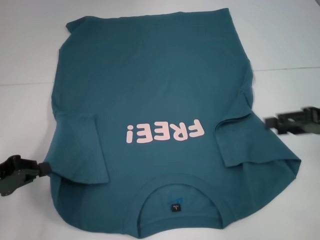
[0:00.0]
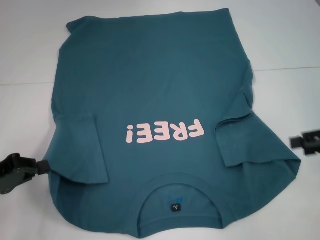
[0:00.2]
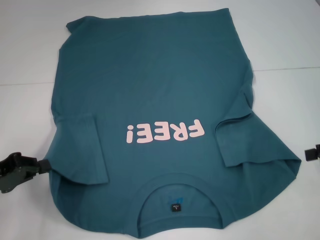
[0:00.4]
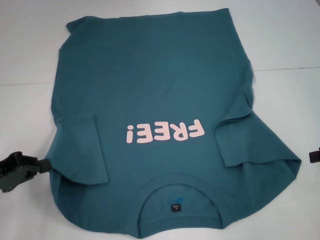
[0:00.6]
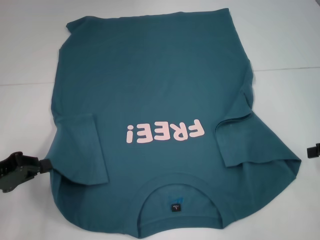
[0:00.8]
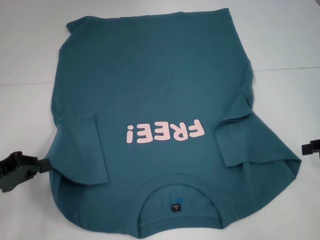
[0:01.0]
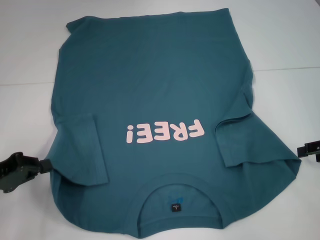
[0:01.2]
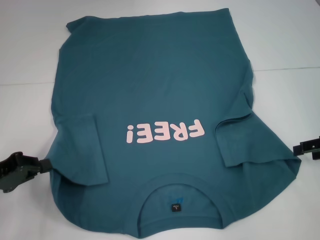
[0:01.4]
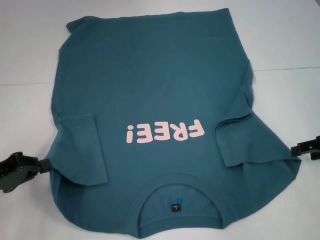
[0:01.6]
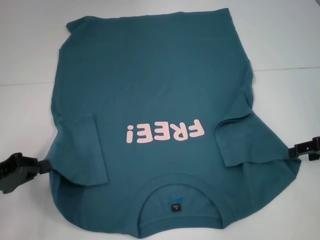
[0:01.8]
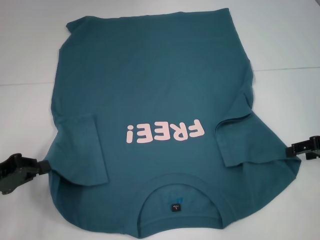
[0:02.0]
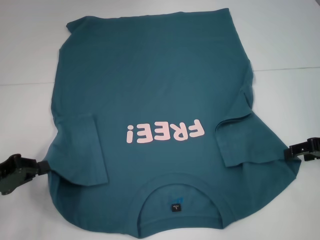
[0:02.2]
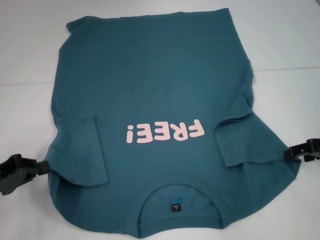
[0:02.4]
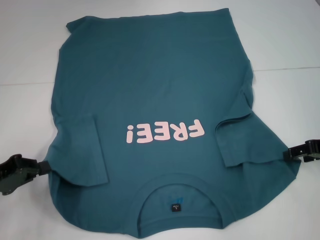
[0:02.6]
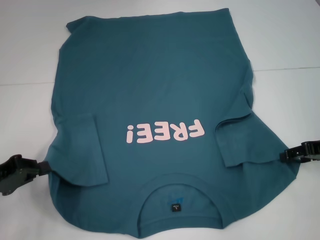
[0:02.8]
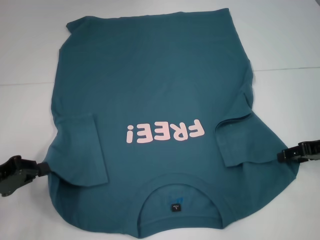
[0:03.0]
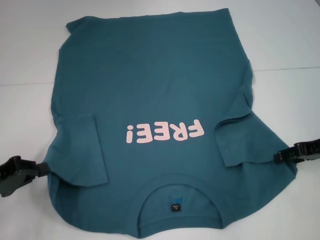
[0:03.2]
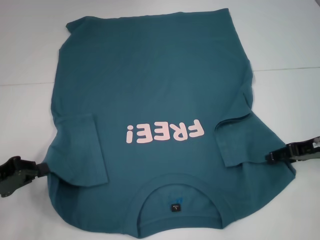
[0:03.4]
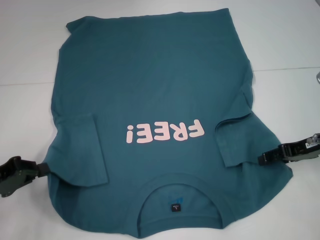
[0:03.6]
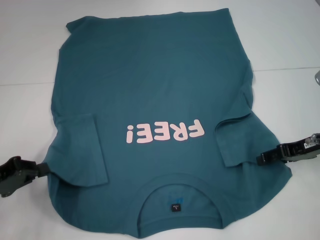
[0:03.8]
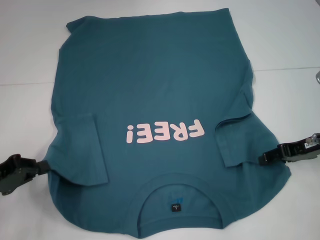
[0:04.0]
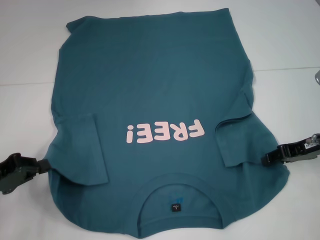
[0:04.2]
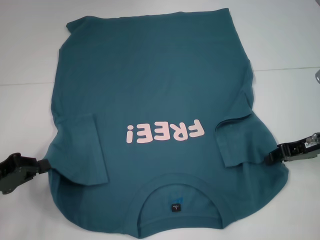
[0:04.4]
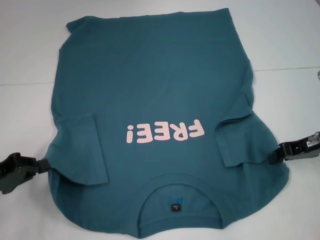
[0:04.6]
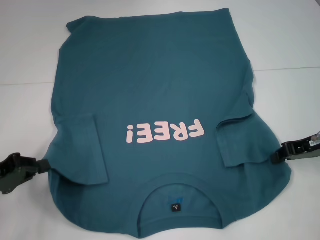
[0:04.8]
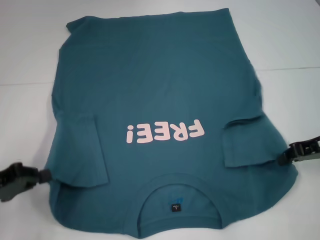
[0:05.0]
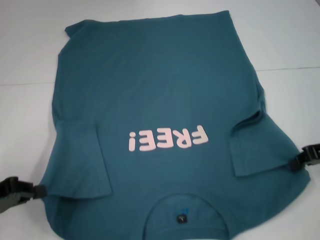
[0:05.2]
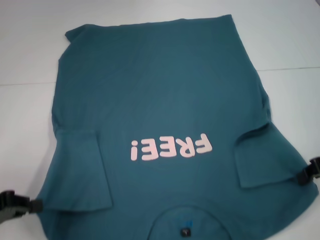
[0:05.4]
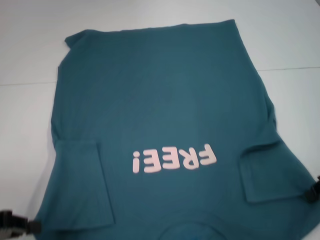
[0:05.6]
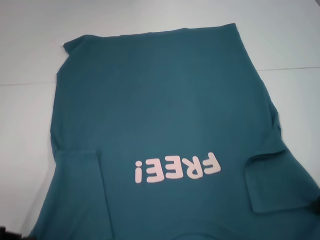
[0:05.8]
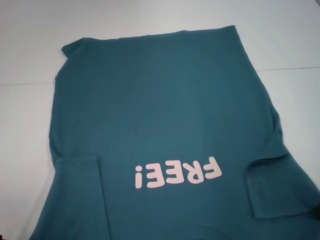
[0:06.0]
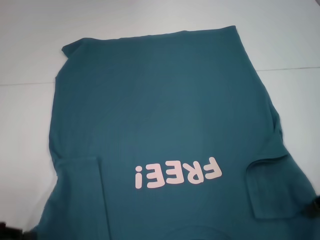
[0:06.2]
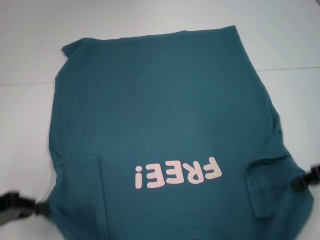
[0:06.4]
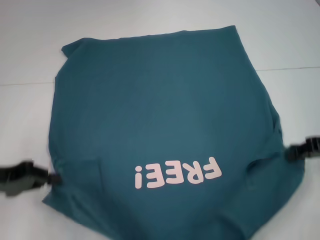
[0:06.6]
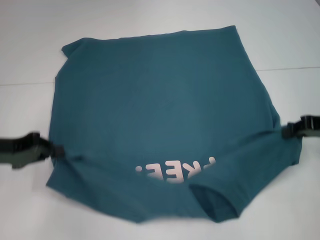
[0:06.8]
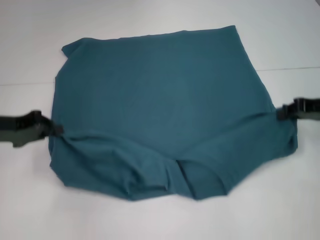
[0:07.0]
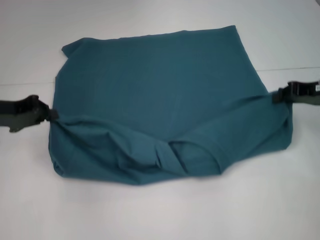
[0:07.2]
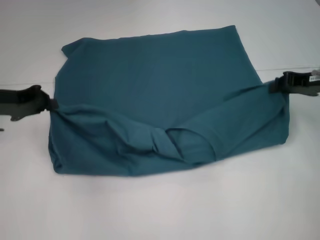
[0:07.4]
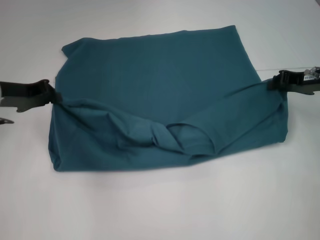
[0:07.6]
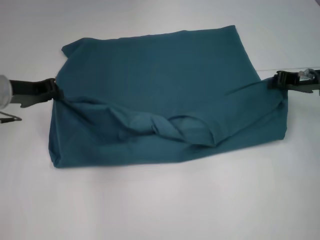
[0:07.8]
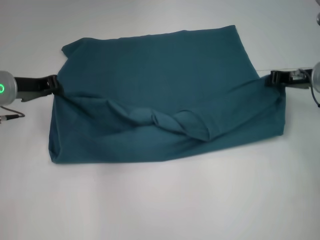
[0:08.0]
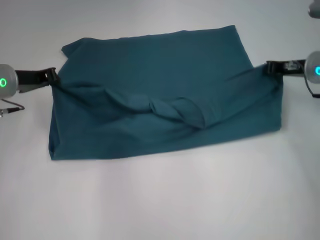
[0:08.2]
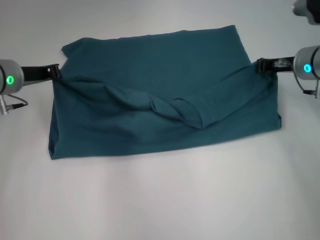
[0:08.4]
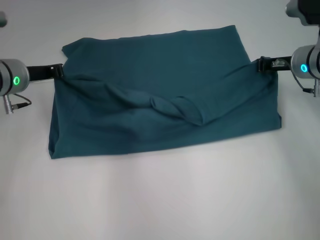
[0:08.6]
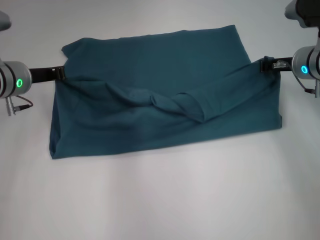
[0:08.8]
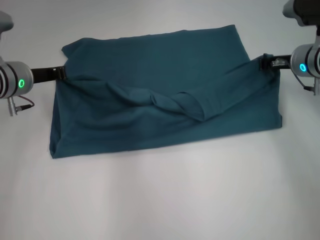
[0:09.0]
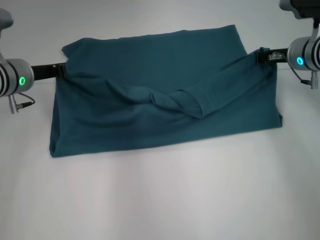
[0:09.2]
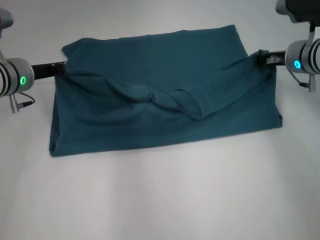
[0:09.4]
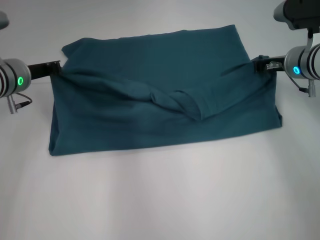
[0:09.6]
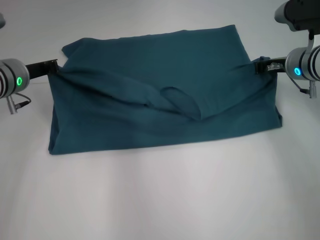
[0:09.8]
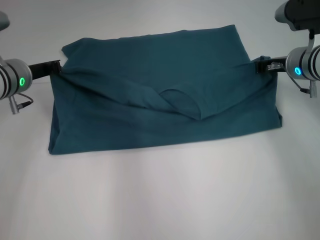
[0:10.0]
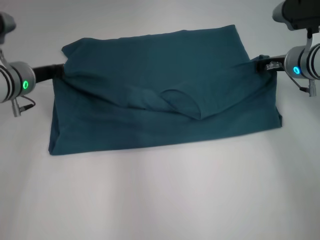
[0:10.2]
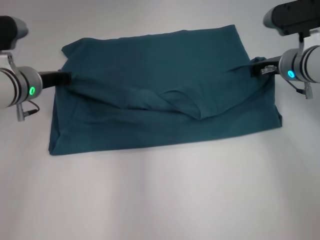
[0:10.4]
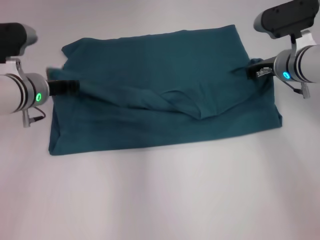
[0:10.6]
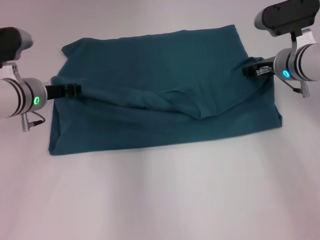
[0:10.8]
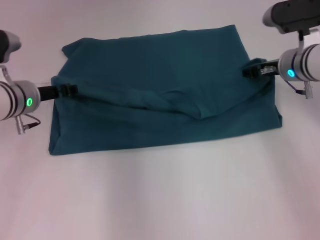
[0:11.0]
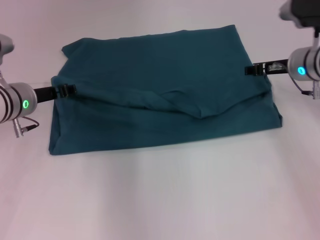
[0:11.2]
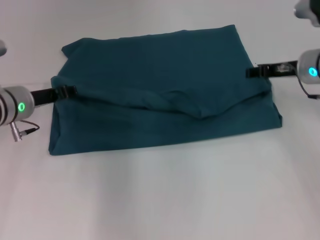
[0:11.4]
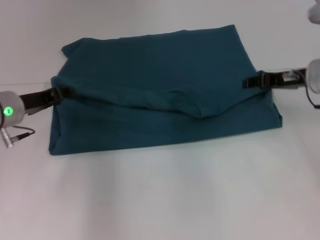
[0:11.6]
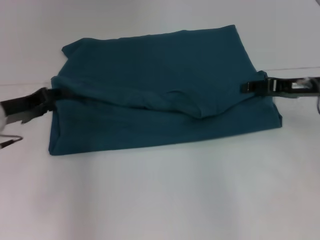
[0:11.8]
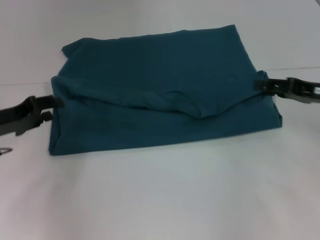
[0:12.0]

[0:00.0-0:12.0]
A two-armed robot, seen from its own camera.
Step, 0:00.0 to 0:04.6: Grab the bottom right corner with your right hand.
Step, 0:04.8 to 0:10.6: Fold the clothes to the left.
Step, 0:10.8 to 0:11.2: Fold the clothes to the right.
0:01.6 to 0:03.0: The grippers move only a little.
0:03.0 to 0:04.4: The grippers make only small movements.
0:04.4 to 0:06.0: The two grippers go approximately 5 cm backward. The right gripper closes.
0:06.0 to 0:07.6: The left gripper heads forward, covering roughly 20 cm, while the right gripper heads forward, covering approximately 10 cm.
0:07.6 to 0:09.0: The right gripper heads to the left and forward, covering approximately 5 cm, while the left gripper shifts by approximately 5 cm.
0:09.0 to 0:10.4: There are only small adjustments of the grippers.
0:10.4 to 0:12.0: The right gripper shifts roughly 15 cm backward and to the right, and opens up. The left gripper heads backward and to the left, covering approximately 10 cm, and opens.

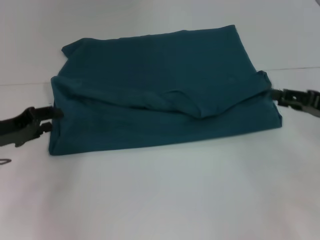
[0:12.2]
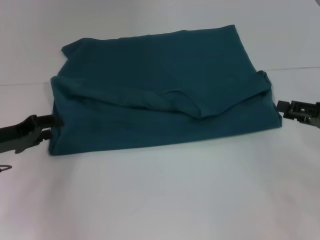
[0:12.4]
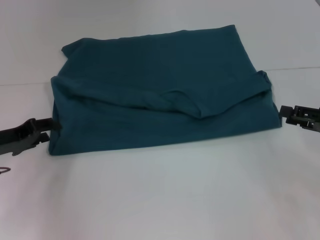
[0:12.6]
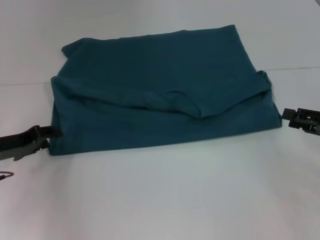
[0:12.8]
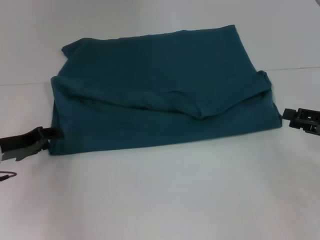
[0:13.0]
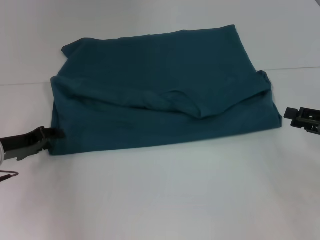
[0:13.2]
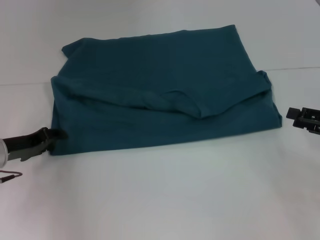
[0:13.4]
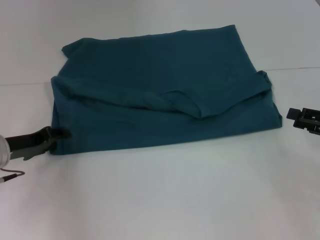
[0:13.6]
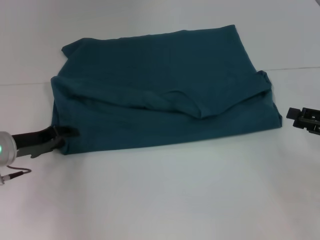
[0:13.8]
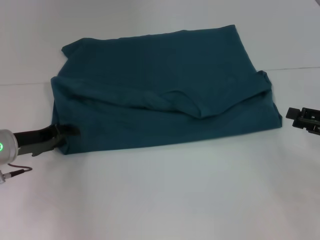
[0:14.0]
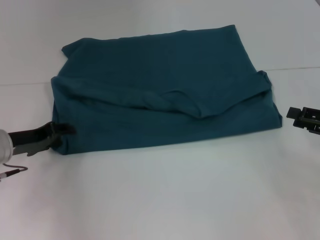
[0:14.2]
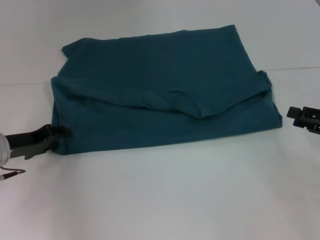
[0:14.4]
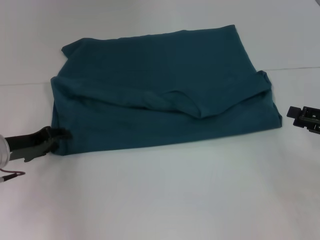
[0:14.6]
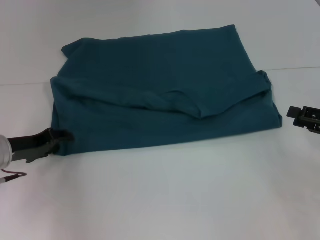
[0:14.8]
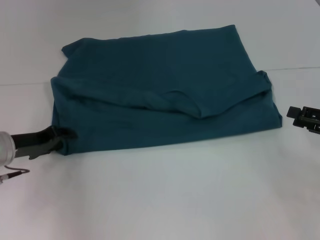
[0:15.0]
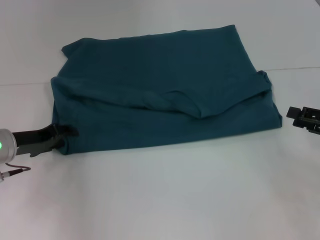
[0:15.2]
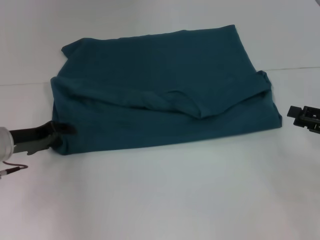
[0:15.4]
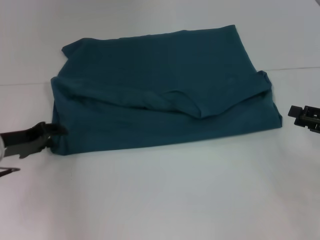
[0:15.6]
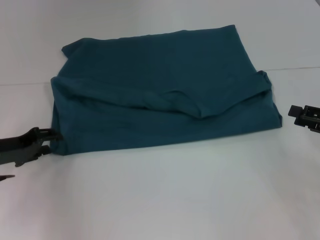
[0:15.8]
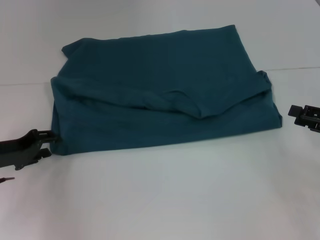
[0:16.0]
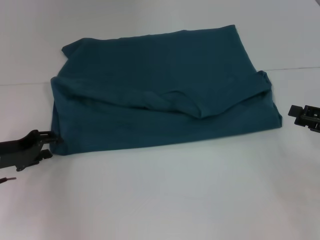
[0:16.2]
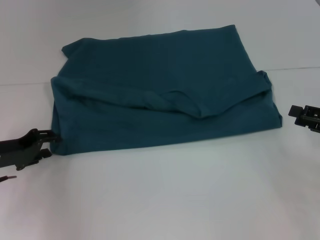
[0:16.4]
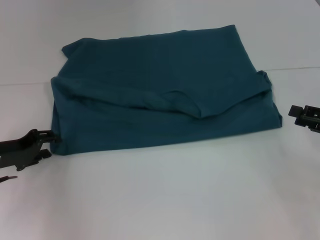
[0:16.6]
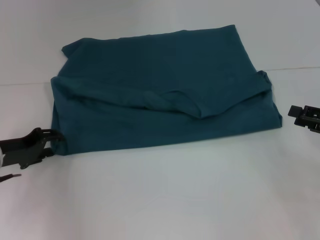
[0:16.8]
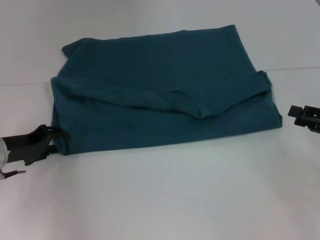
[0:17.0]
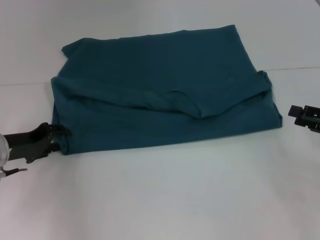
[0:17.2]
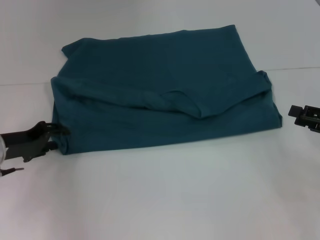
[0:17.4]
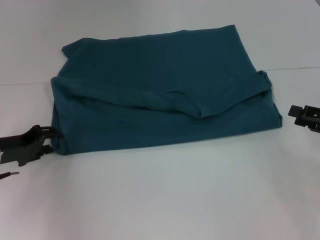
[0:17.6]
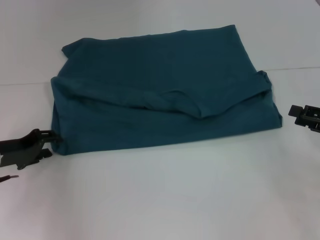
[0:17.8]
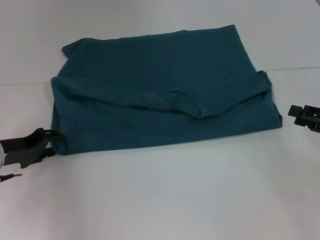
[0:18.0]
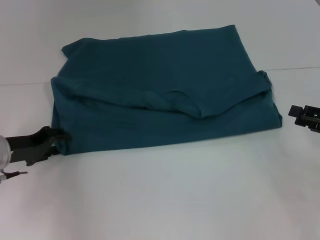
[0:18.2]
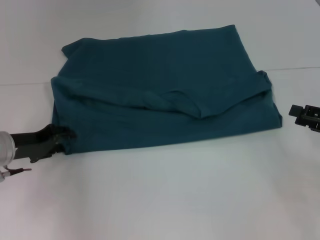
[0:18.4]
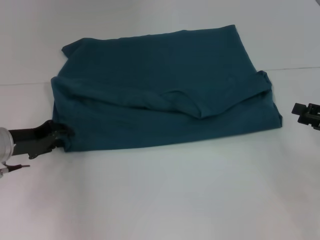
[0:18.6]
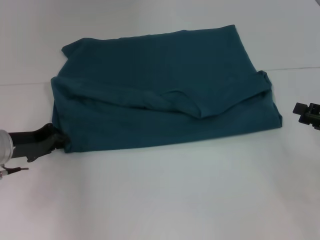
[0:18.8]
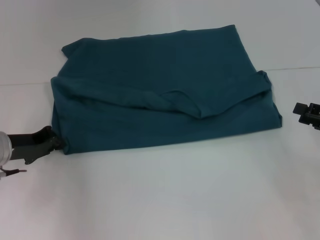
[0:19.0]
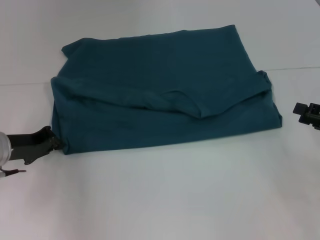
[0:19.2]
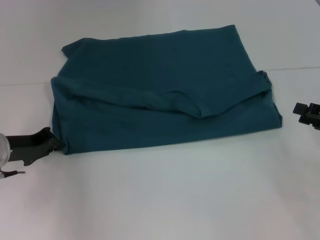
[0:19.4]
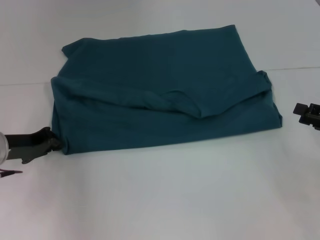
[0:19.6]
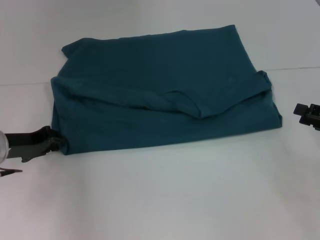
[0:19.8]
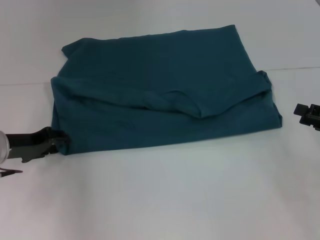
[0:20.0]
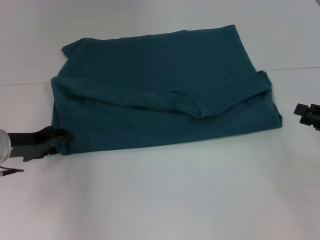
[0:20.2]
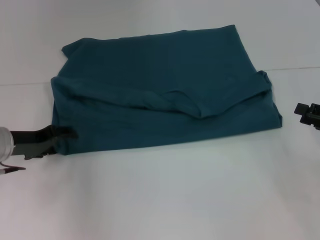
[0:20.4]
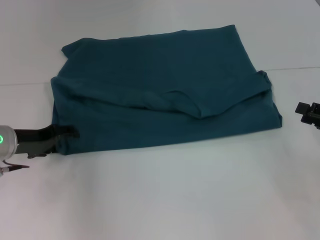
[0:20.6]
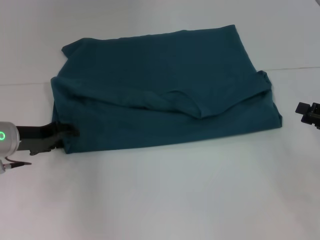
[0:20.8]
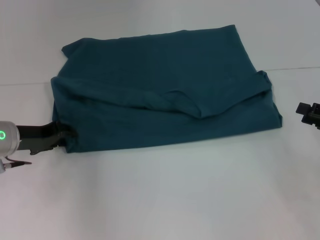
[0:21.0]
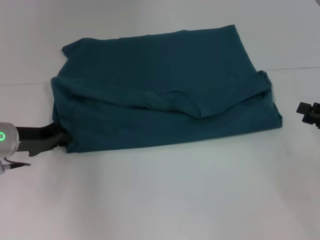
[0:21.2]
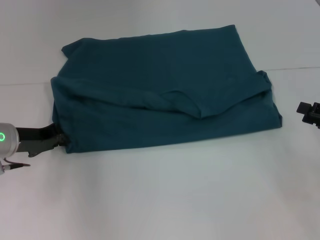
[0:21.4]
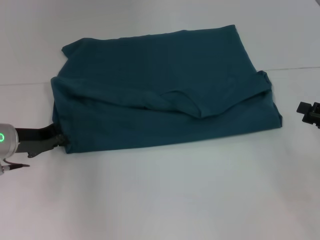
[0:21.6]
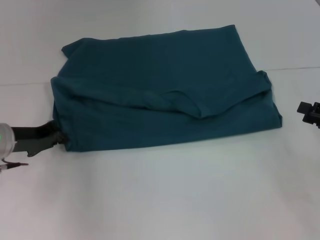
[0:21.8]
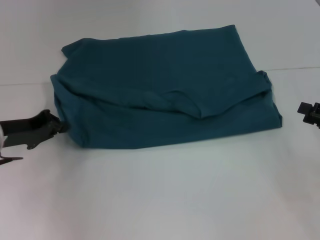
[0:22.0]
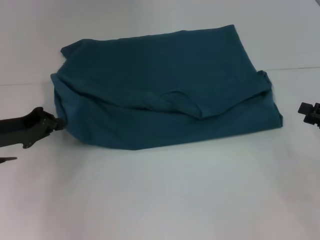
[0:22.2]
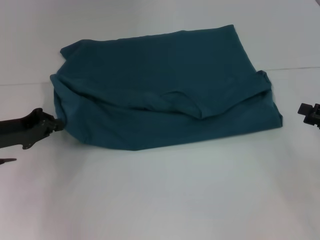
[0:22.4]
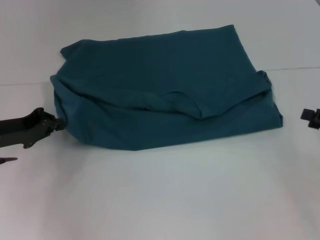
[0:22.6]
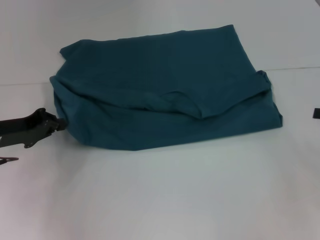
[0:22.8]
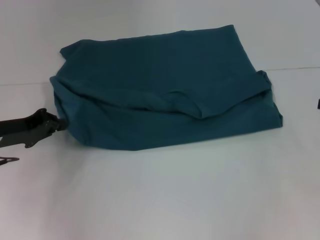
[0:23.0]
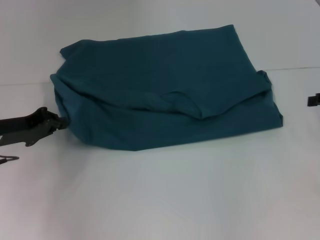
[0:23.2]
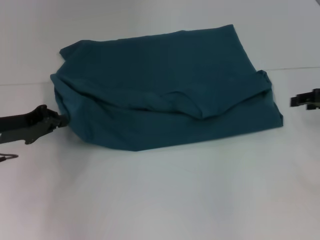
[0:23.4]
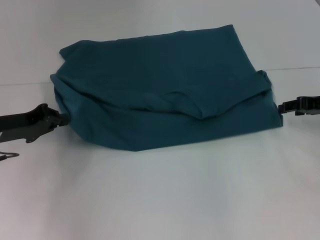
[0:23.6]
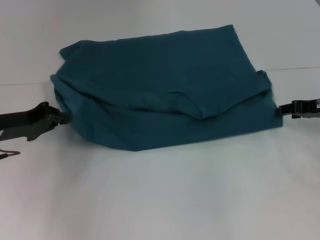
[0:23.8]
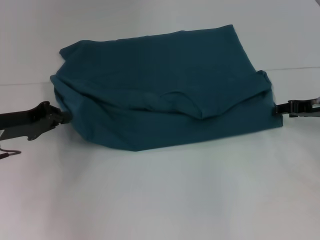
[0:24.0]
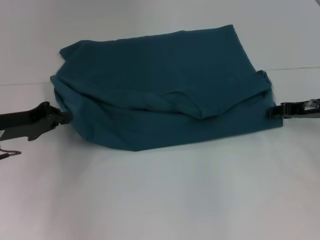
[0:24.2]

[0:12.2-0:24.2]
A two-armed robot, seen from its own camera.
0:12.2 to 0:13.8: There are only small adjustments of the grippers.
0:13.8 to 0:15.2: The two grippers keep their place.
0:15.2 to 0:18.2: The grippers move only a little.
0:18.2 to 0:19.8: The left gripper closes.
0:19.8 to 0:21.2: The left gripper opens, then closes once more.
0:21.2 to 0:22.6: The left gripper closes its fingers.
0:22.6 to 0:24.2: The right gripper is displaced forward and to the left by about 15 cm.
